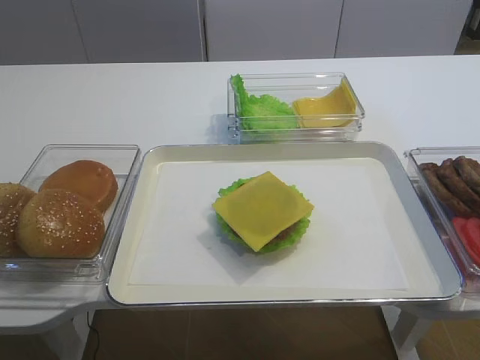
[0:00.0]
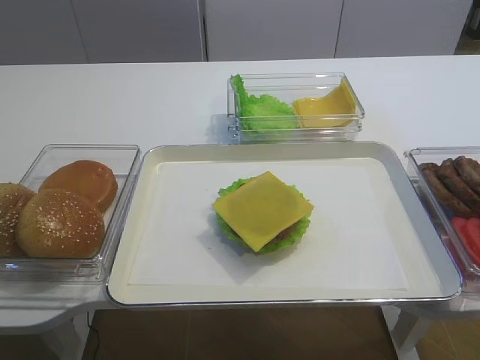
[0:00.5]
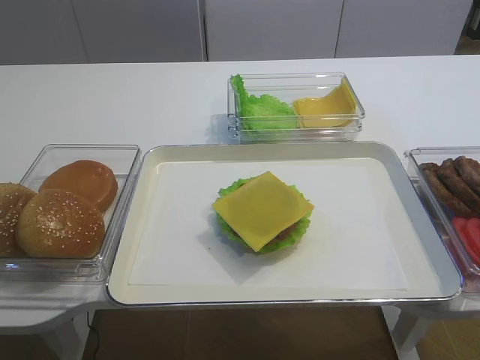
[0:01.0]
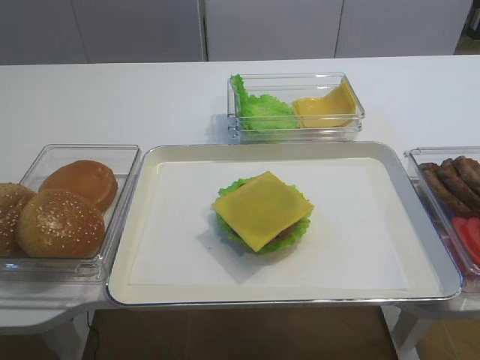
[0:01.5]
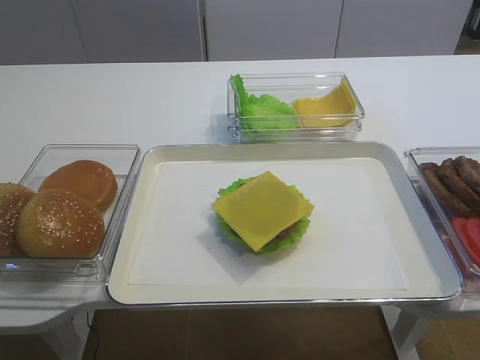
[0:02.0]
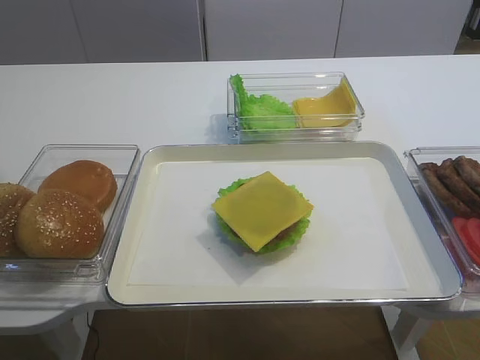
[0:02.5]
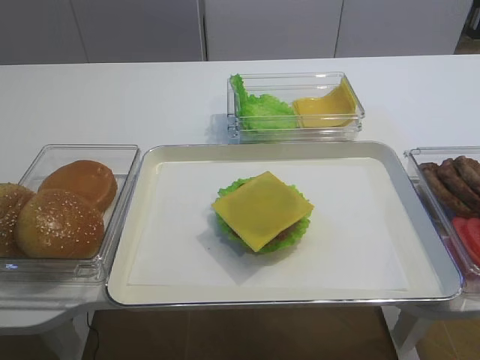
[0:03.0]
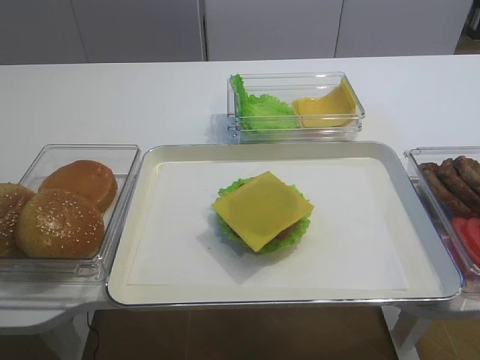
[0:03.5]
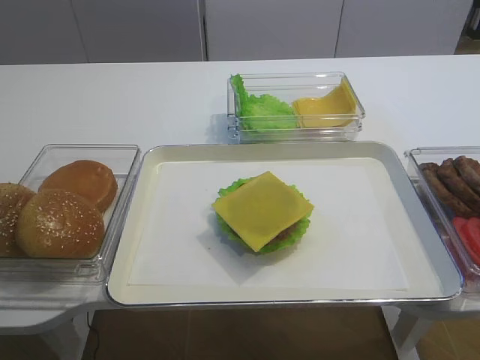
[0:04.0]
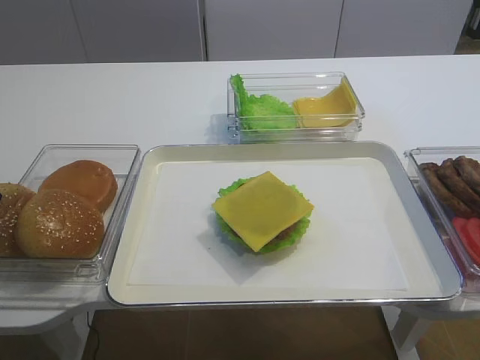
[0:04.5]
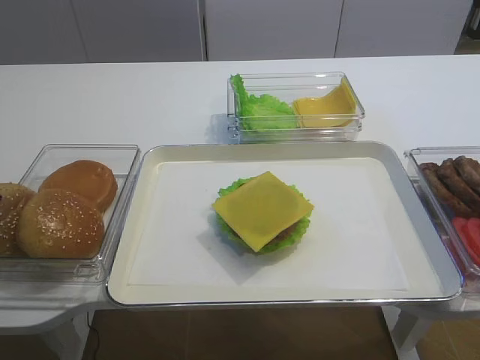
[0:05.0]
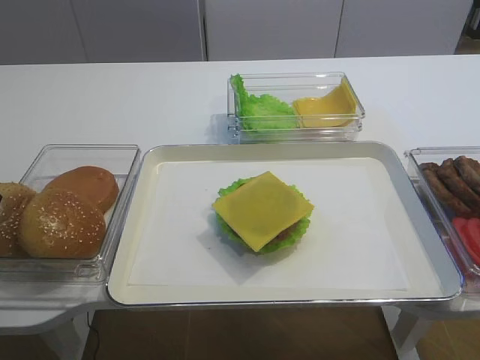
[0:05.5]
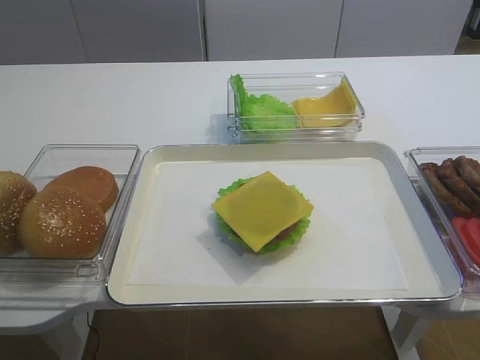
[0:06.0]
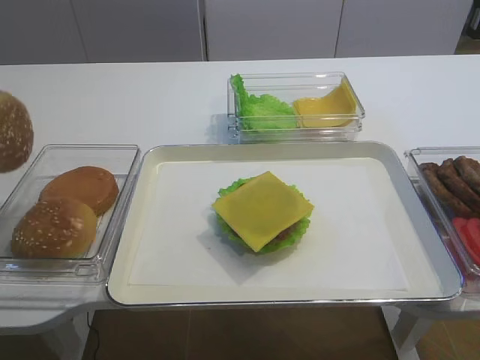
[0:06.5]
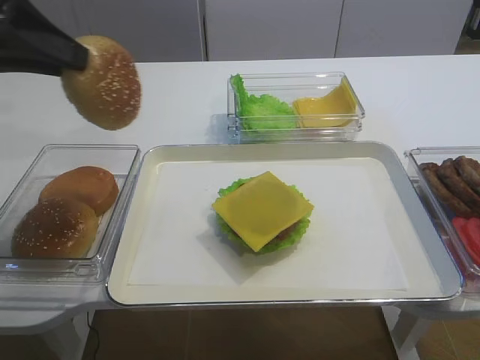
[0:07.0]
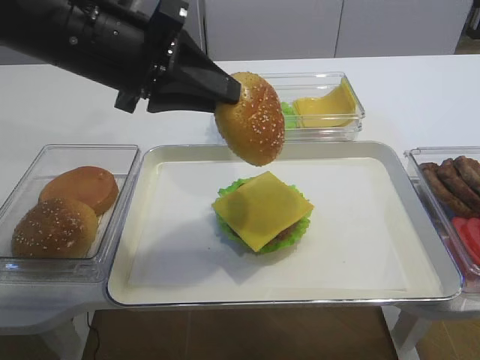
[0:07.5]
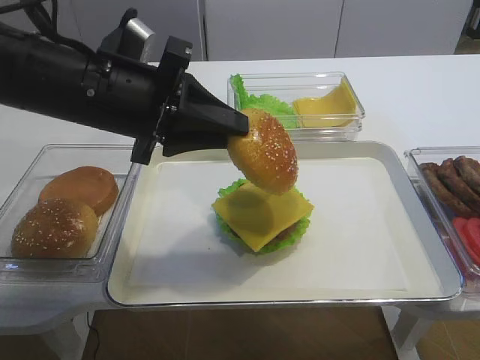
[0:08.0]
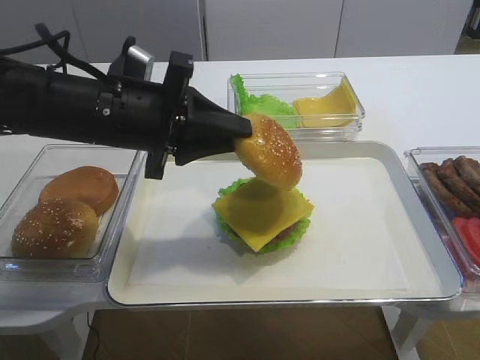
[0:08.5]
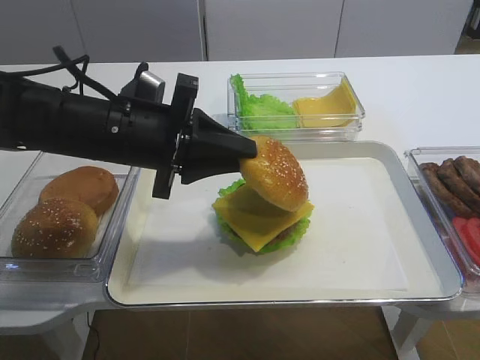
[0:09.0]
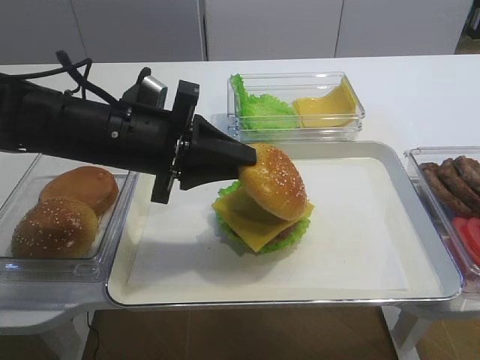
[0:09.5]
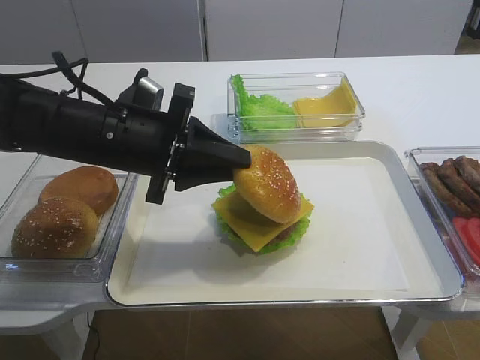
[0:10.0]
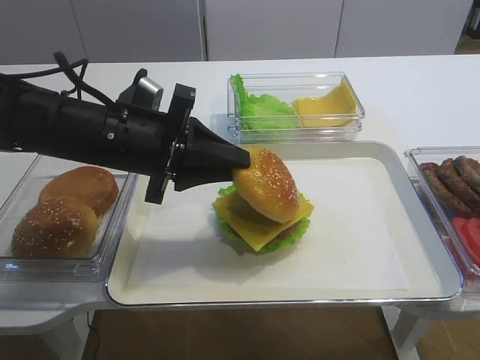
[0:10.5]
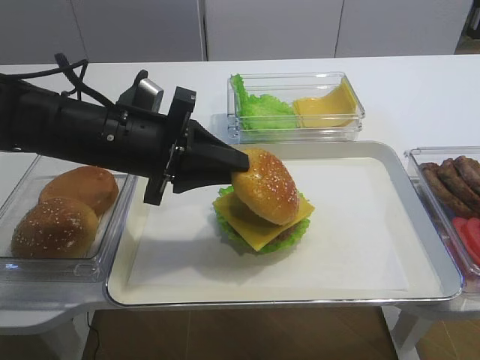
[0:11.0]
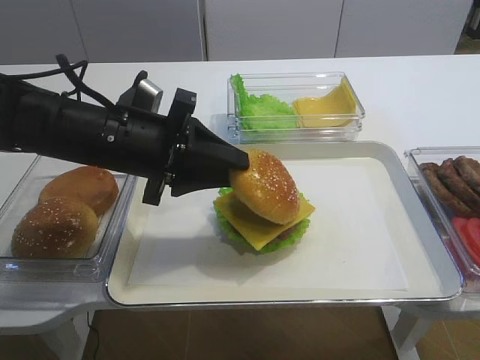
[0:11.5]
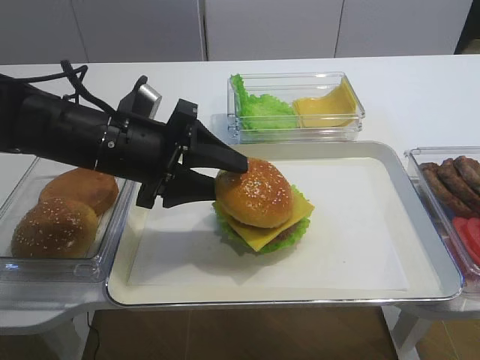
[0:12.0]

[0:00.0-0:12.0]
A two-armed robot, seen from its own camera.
0:04.0 to 0:06.0: The left gripper closes up.
0:06.0 to 0:08.0: The left gripper moves to the right, roughly 20 cm.
0:08.0 to 0:10.0: The left gripper heads downward, covering roughly 5 cm.
0:10.0 to 0:12.0: The left gripper opens up.

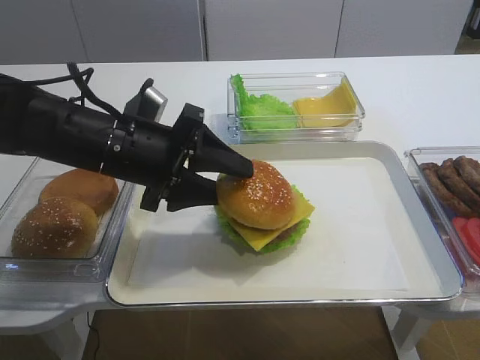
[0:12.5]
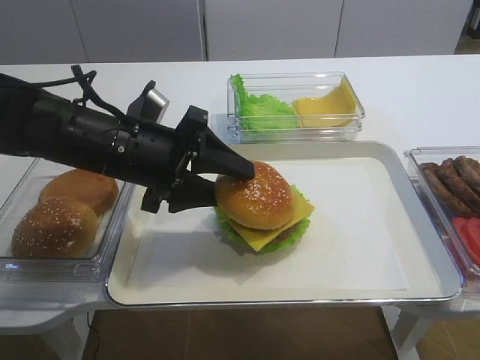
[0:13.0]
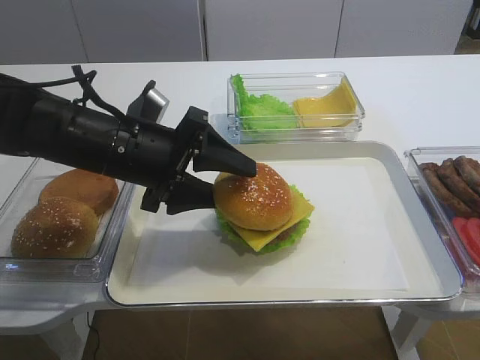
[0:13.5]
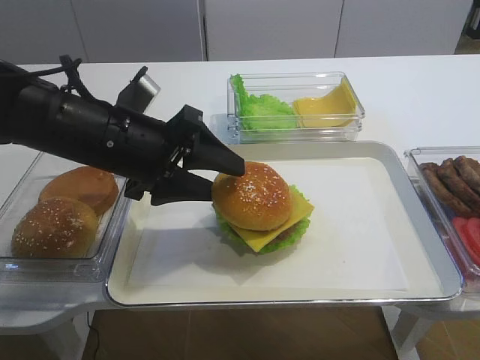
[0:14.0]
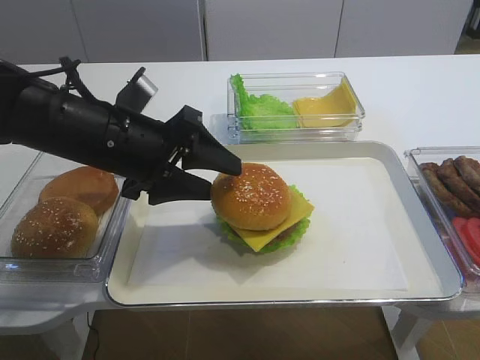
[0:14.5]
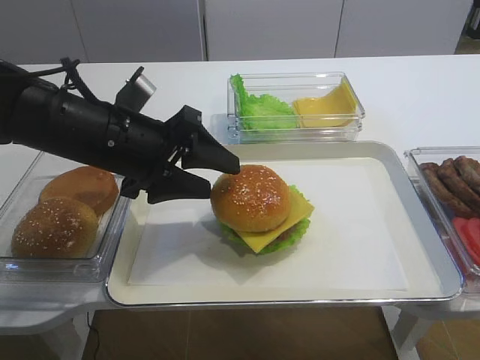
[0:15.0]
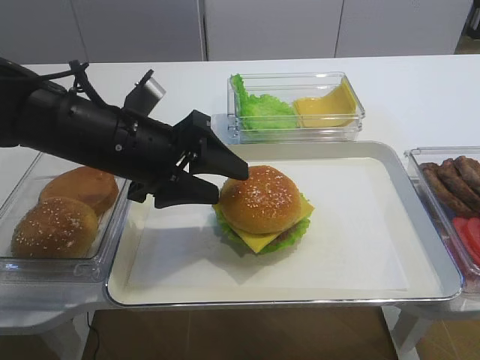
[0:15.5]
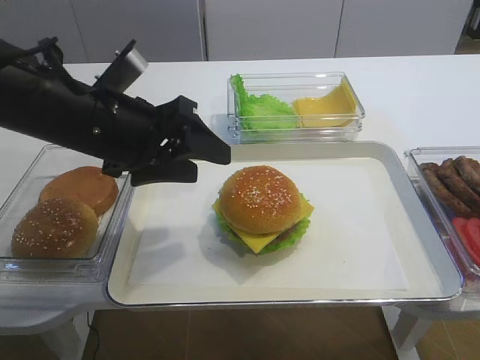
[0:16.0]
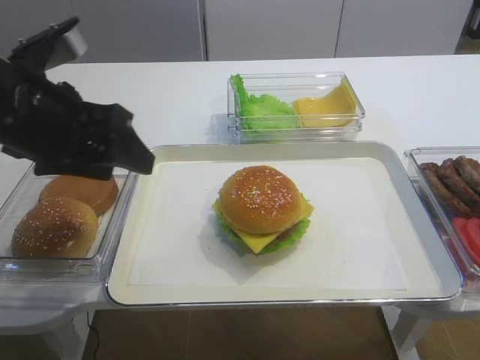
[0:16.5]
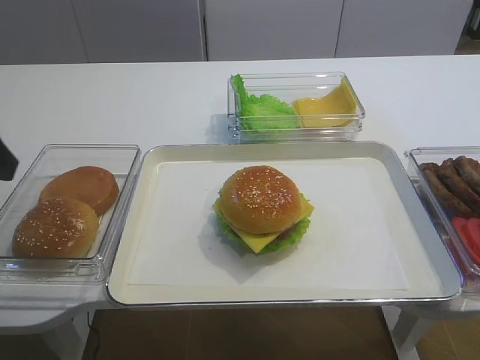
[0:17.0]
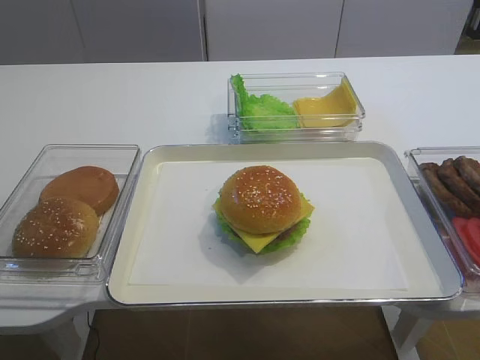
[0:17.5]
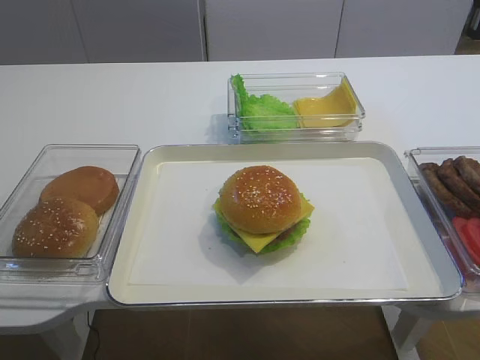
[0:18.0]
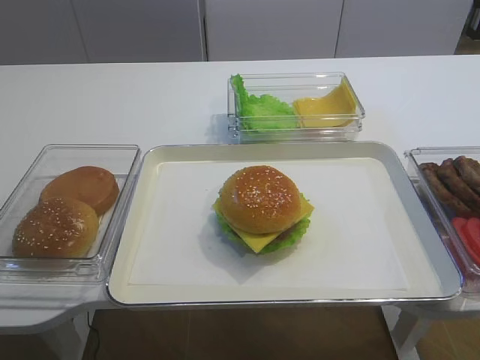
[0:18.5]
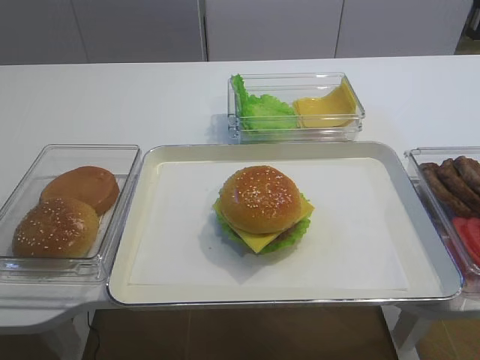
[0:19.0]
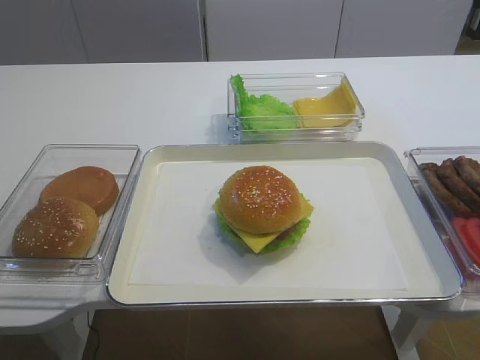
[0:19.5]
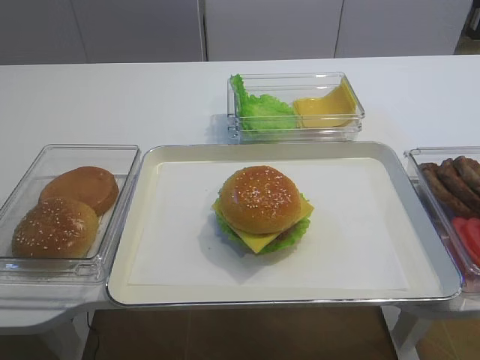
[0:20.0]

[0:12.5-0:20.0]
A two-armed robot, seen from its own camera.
Step, 0:12.5 to 0:15.0: Place the hamburger lid on the cheese slice with the left gripper.
0:12.5 to 0:14.5: The grippers stay close to where they were, moving slightly.
0:14.5 to 0:16.5: The left gripper moves upward and to the left, some 10 cm.
0:16.5 to 0:18.0: The left gripper shifts roughly 25 cm backward, to the left and upward.

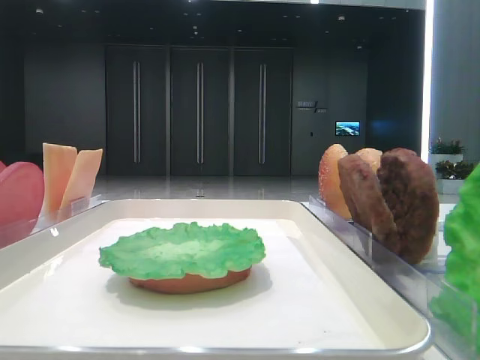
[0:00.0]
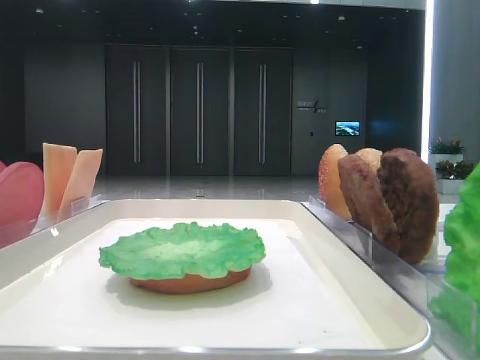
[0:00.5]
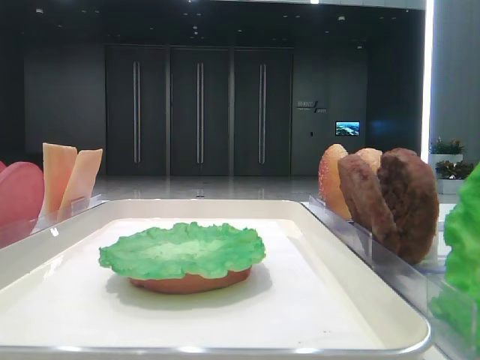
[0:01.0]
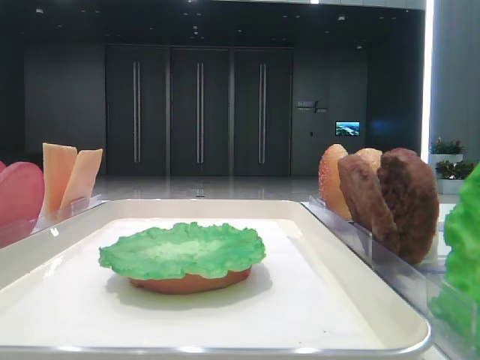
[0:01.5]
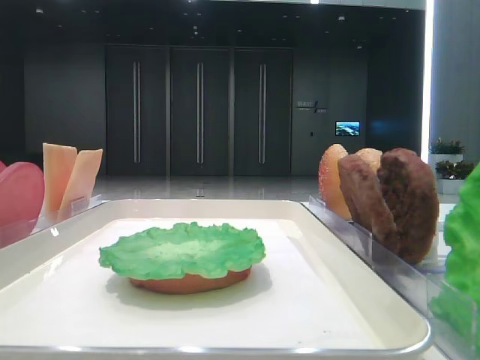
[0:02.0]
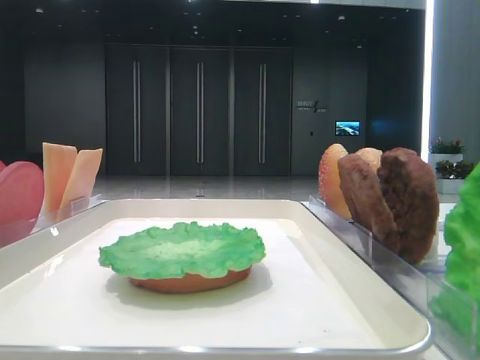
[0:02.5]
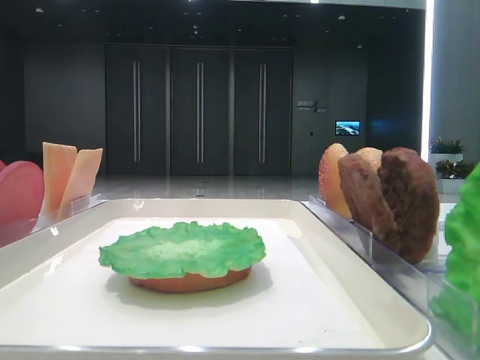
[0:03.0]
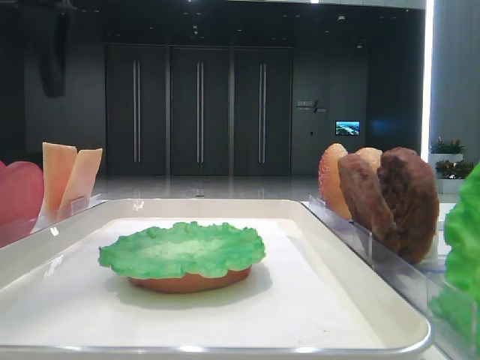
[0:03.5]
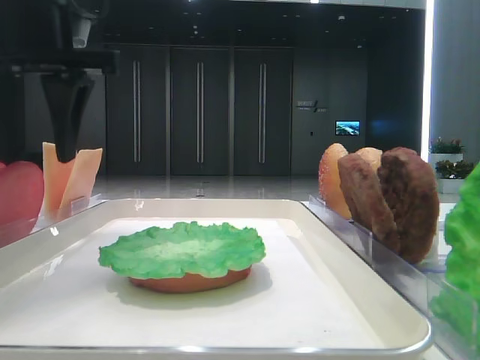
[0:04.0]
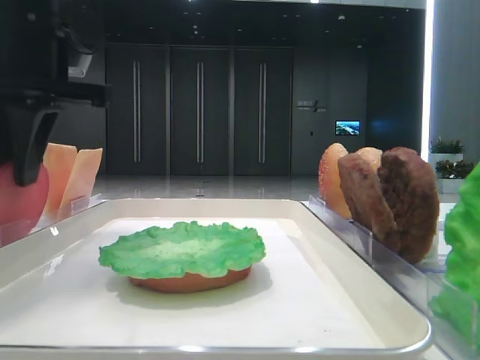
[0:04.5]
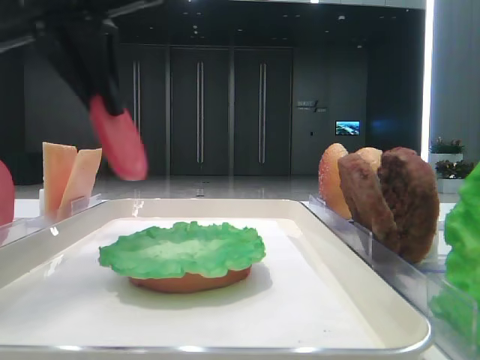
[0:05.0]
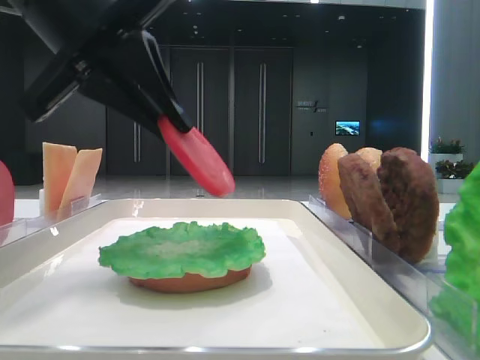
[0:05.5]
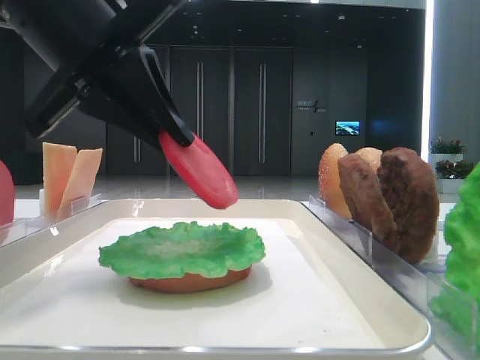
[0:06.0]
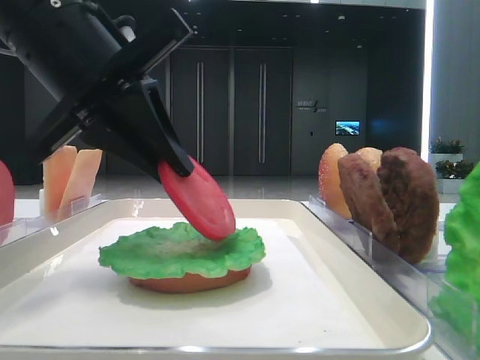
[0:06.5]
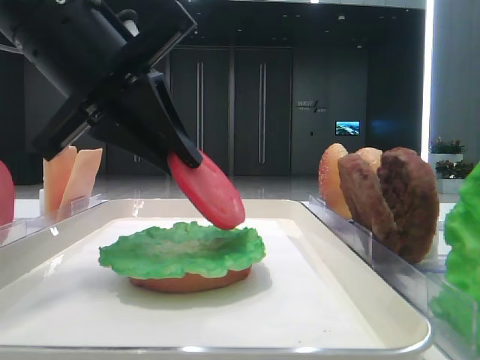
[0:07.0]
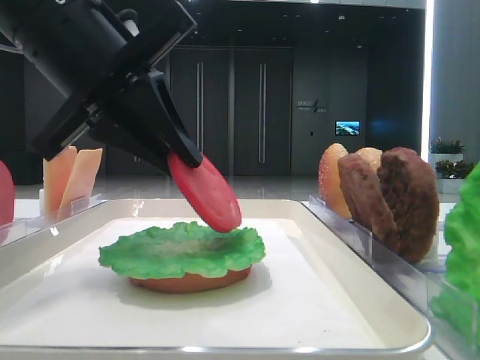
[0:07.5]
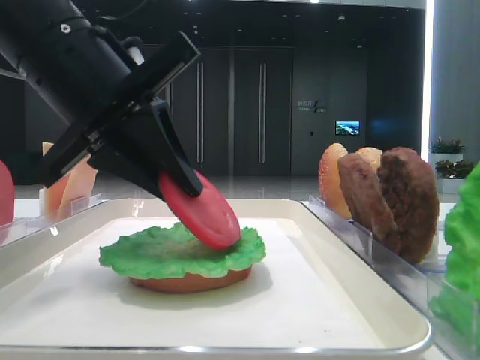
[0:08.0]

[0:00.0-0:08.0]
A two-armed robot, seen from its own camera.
Step, 0:00.0 to 0:04.0: Pick up the tomato slice with the left hand.
0:02.0 to 0:04.0: The left gripper moves forward and to the right, approximately 30 cm, and opens.
0:04.0 to 0:06.0: The left gripper moves about 5 cm, and closes its fingers.
0:06.0 to 0:08.0: The grippers make only small movements.
